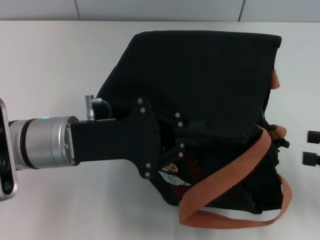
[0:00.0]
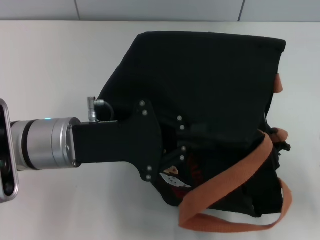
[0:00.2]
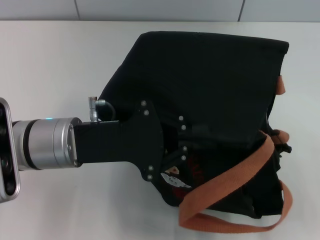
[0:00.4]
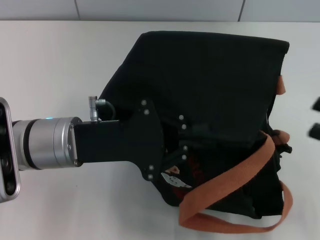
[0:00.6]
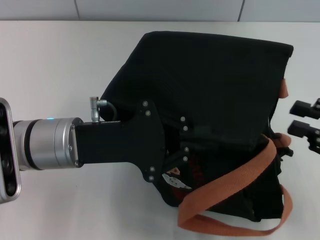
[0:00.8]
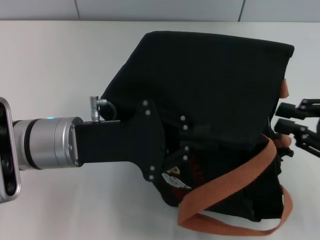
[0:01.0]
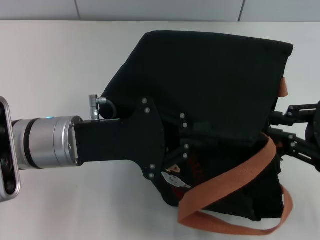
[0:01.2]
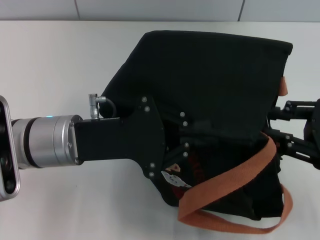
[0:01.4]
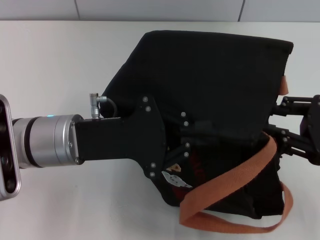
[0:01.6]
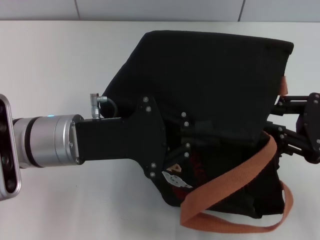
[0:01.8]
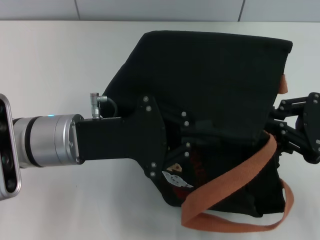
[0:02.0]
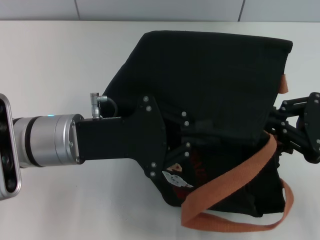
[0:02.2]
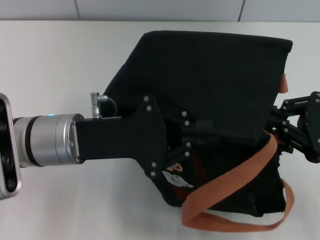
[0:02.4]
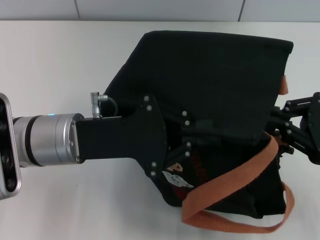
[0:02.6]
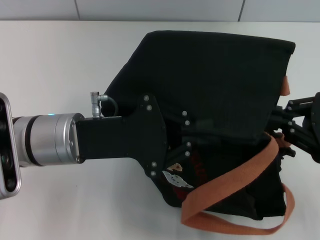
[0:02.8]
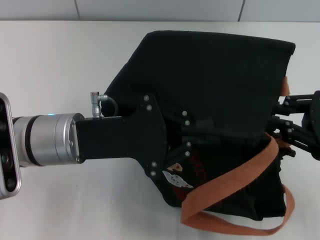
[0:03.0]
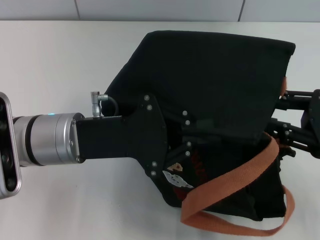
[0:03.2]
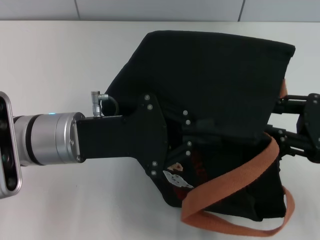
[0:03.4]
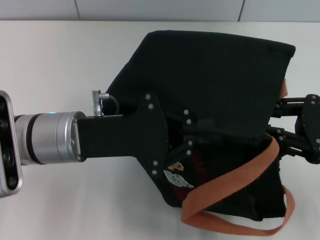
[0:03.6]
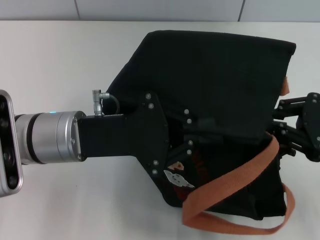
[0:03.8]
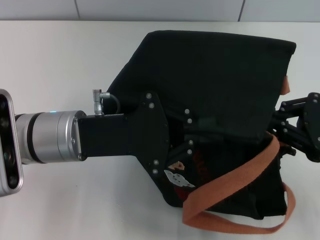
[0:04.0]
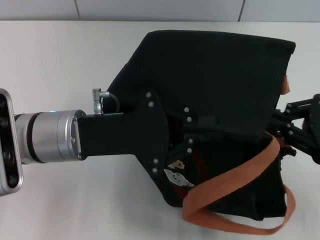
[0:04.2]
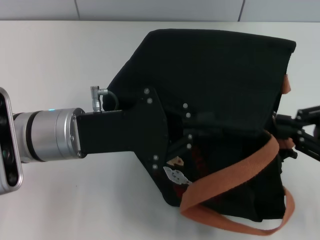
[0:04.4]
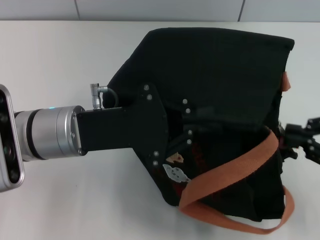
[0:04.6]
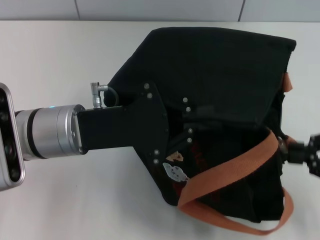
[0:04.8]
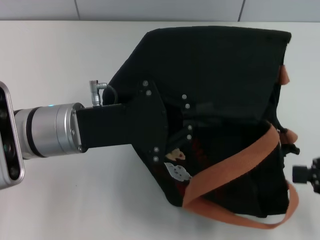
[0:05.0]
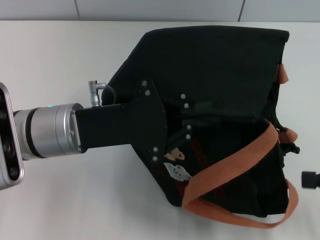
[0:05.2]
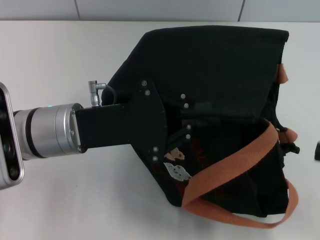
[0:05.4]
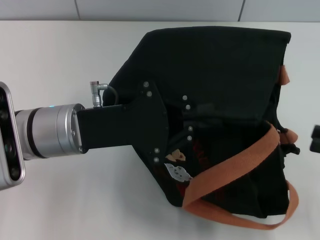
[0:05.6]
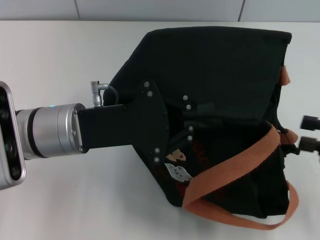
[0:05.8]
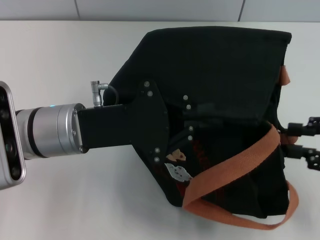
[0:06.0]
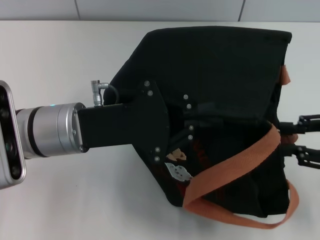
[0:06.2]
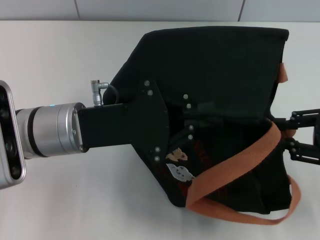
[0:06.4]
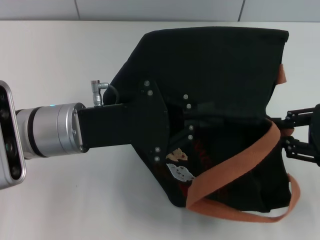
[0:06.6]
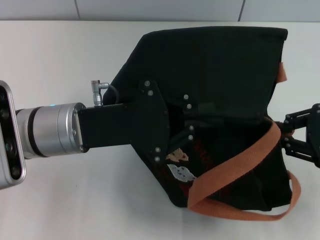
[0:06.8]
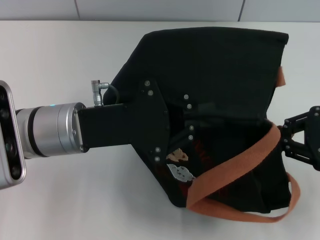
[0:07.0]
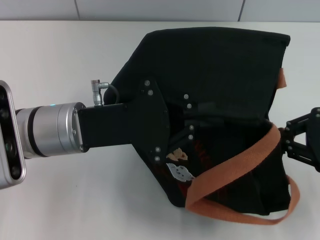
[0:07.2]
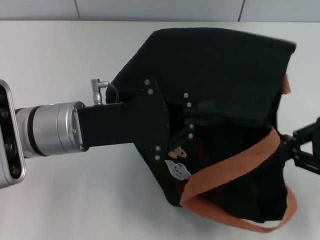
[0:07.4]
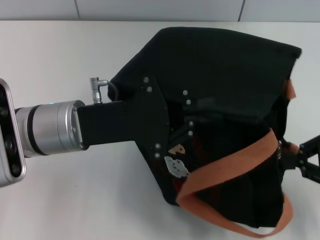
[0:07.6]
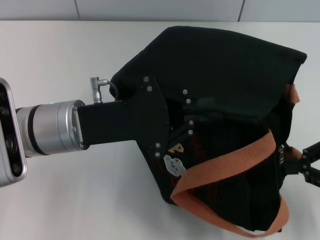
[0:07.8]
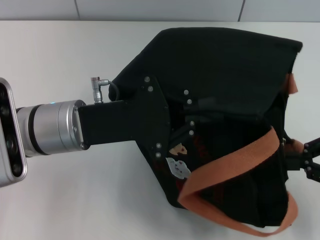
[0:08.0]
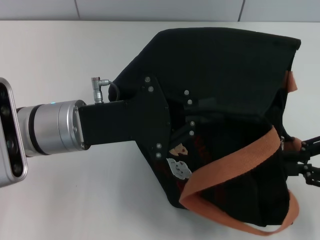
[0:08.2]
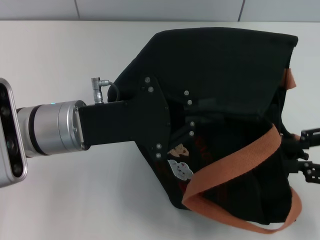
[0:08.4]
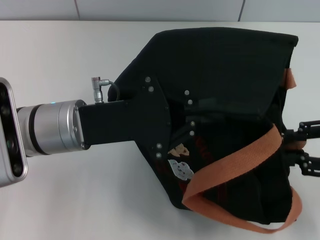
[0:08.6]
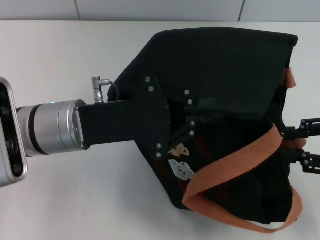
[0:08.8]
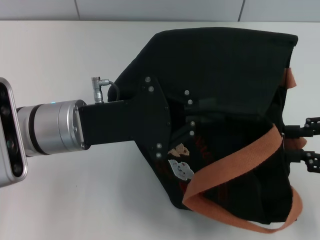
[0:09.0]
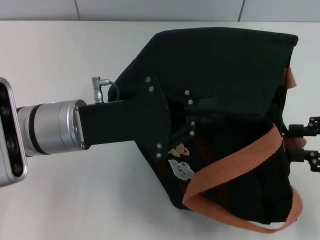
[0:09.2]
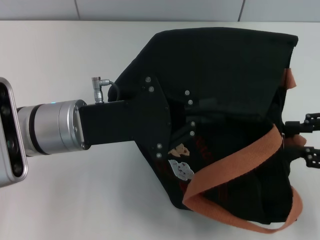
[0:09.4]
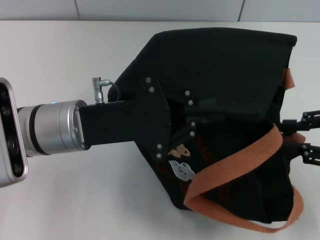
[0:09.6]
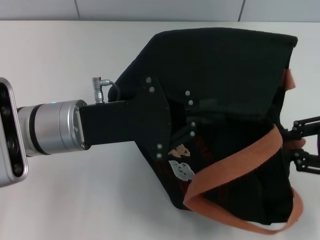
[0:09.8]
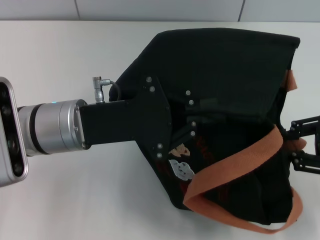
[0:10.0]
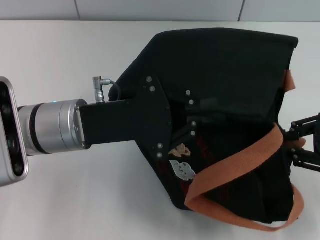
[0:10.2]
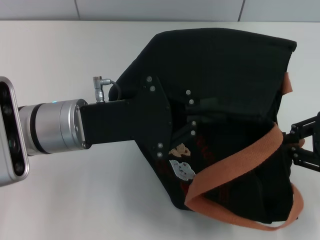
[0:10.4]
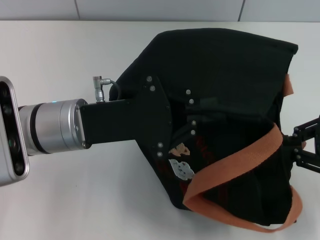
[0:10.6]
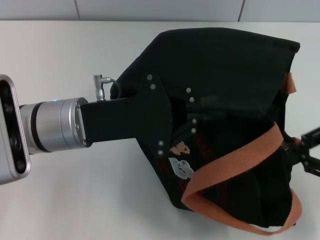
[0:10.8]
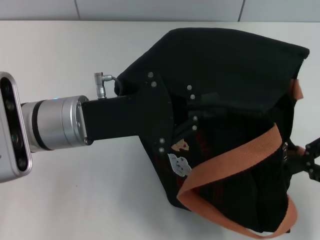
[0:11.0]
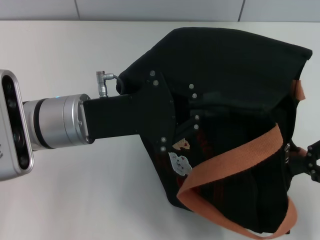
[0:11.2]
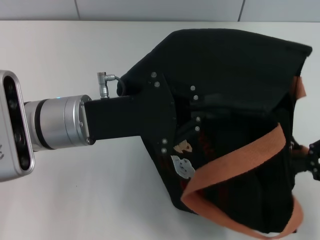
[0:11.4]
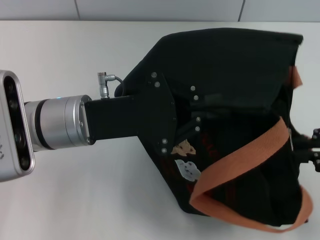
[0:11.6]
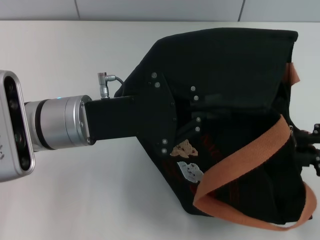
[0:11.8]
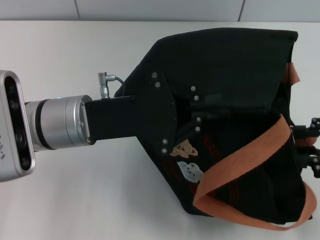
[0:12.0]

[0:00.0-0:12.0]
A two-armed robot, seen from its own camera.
0:00.0 to 0:01.6: The right gripper travels to the left by about 5 cm, and closes up.
0:01.6 to 0:03.0: The two grippers keep their place.
0:03.0 to 0:04.4: The right gripper opens, then closes again.
0:06.0 to 0:07.6: The grippers move only a little.
0:07.6 to 0:09.0: The right gripper opens.
0:09.0 to 0:12.0: The grippers make only small movements.

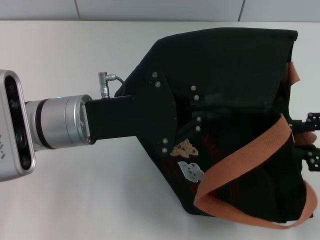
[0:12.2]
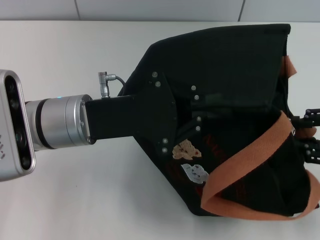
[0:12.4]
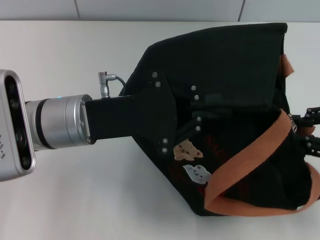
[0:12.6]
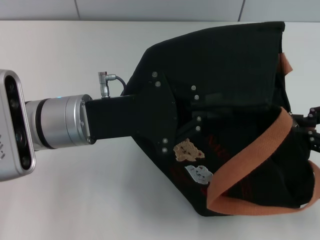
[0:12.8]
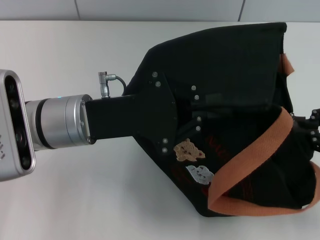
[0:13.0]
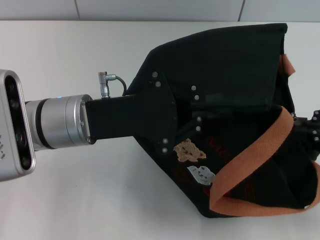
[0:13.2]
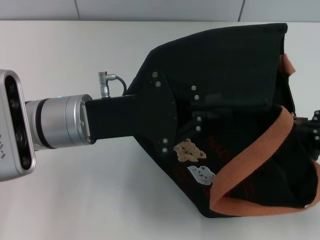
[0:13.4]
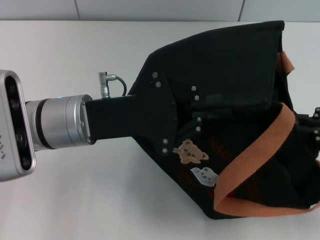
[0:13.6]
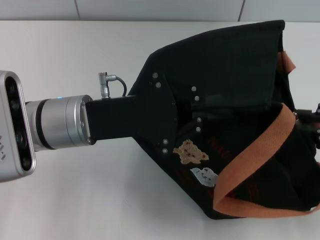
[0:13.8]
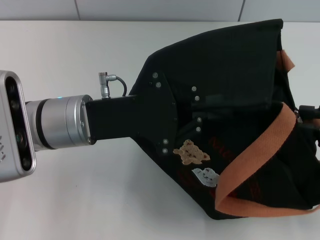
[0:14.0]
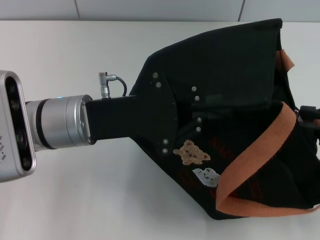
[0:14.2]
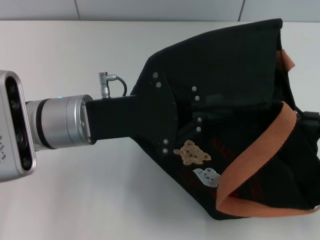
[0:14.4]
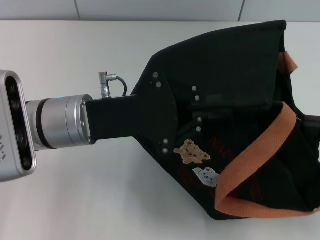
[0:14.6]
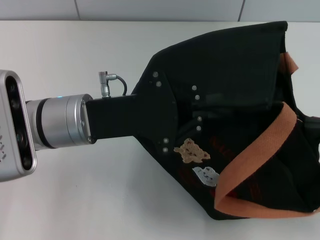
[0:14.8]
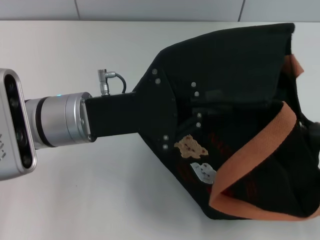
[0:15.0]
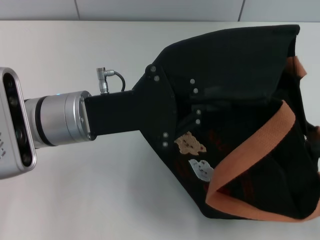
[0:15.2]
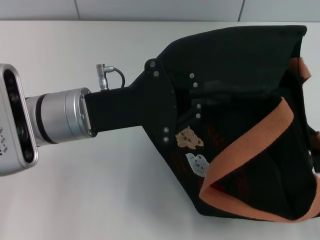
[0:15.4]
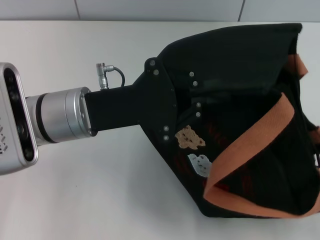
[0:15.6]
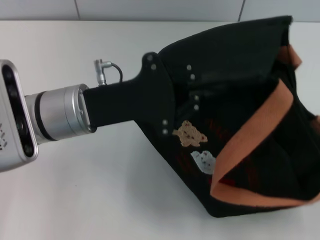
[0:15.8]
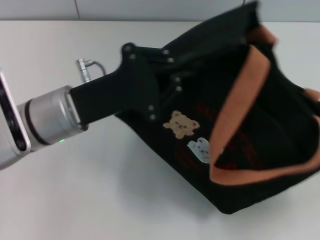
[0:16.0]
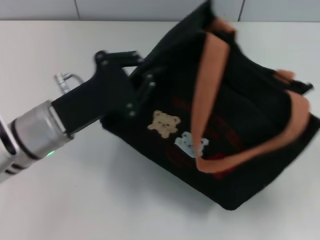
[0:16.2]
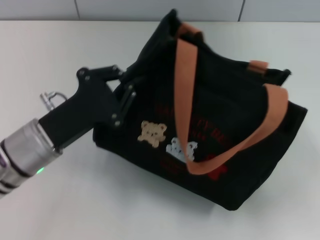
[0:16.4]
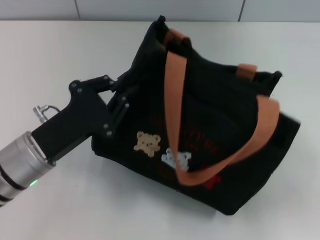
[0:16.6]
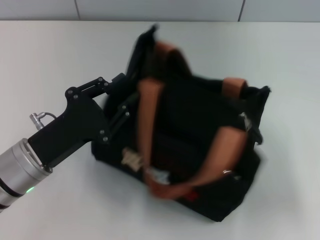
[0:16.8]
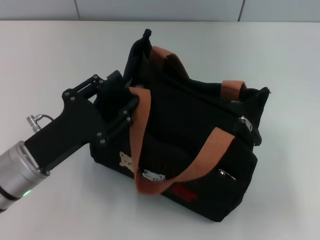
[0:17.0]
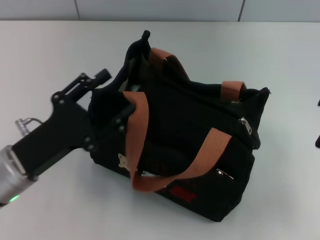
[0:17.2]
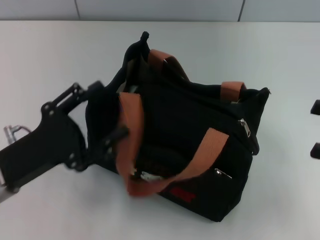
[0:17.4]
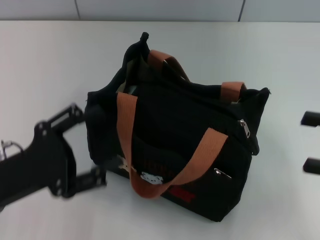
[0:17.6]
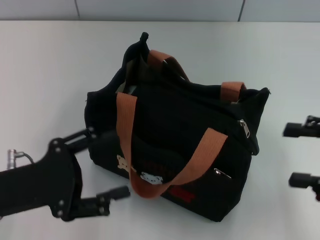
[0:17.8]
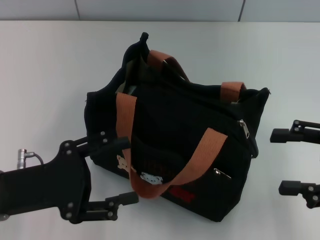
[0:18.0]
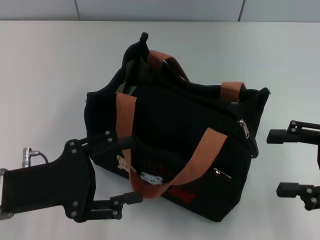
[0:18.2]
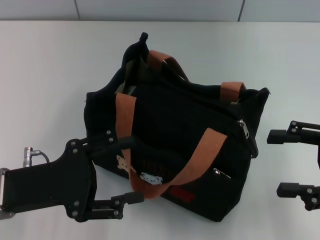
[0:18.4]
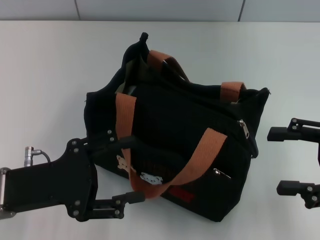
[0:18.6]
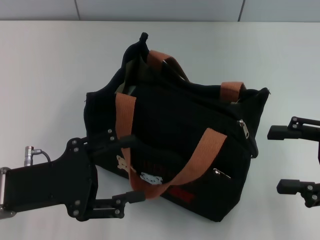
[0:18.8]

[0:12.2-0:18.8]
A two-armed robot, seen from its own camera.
Step, 0:12.2 to 0:16.2: Pull open the zipper with your right hand.
Step, 0:16.6 to 0:17.2: Grab the bag with your left hand.
0:12.2 to 0:13.8: The right gripper closes.
0:13.8 to 0:15.4: The grippers stay close to where they were, moving slightly.
0:15.4 to 0:17.2: The right gripper opens up. Meanwhile the left gripper heads to the left, backward and downward, covering roughly 10 cm, and opens its fingers.
0:17.2 to 0:18.8: The right gripper changes place by some 5 cm. The left gripper opens up.

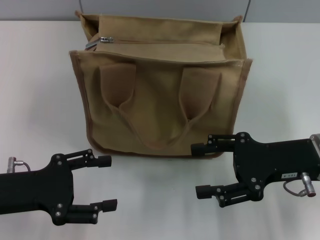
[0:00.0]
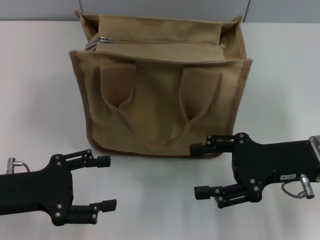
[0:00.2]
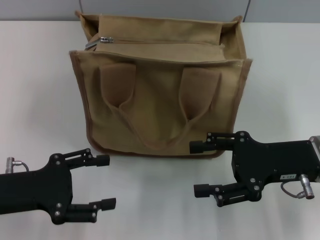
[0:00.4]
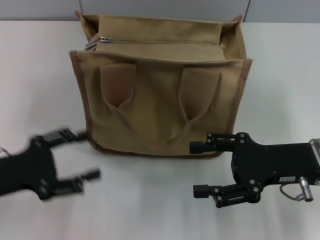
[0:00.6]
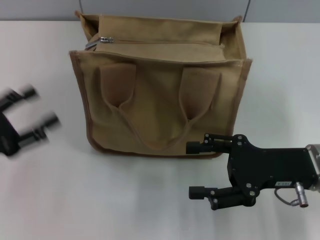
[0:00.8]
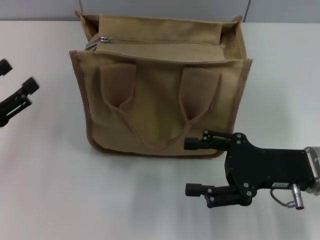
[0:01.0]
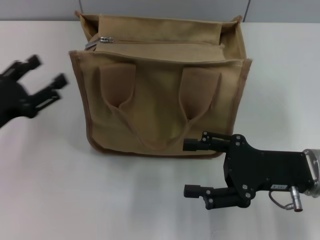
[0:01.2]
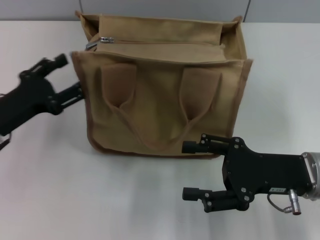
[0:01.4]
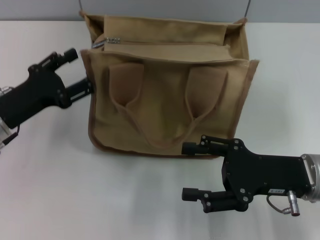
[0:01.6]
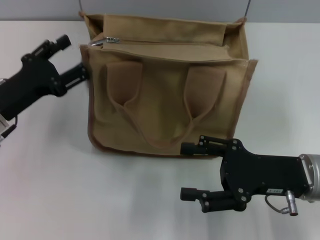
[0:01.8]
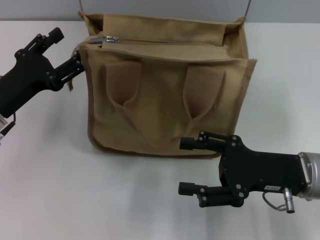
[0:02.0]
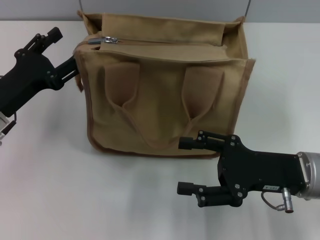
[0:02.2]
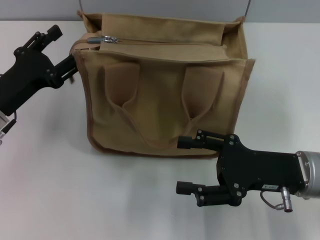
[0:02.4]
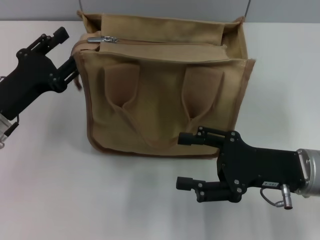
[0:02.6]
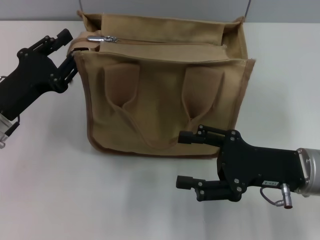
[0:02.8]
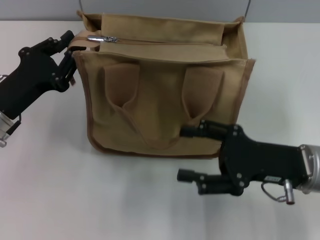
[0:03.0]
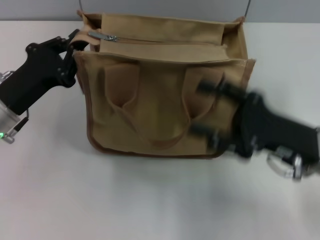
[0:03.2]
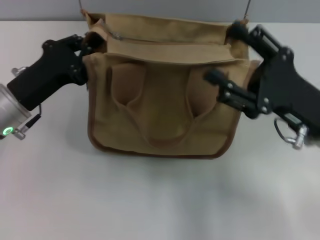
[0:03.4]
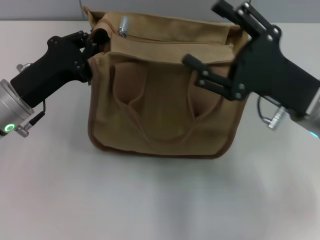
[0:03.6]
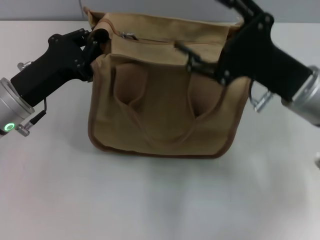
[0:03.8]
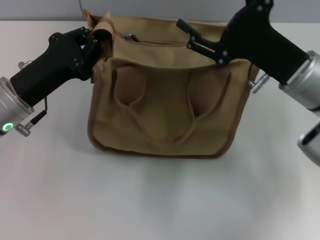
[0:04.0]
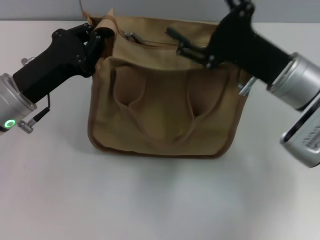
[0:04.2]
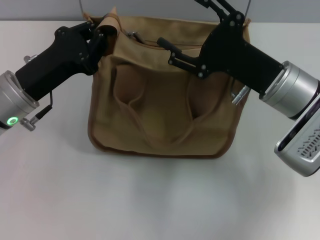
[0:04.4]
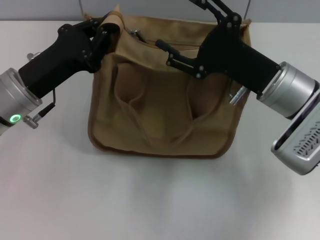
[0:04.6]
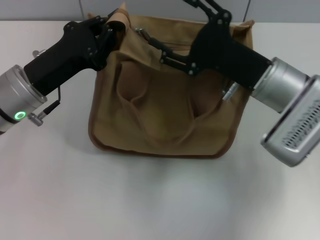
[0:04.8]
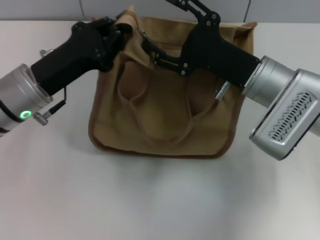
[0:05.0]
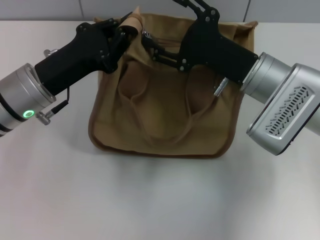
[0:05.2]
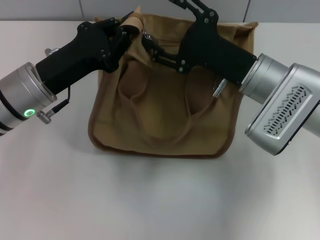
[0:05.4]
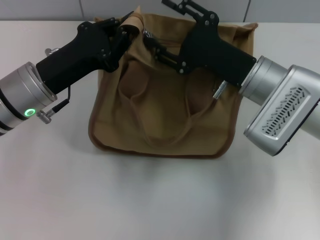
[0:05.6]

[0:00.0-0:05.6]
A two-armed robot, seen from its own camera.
0:00.0 to 0:01.4: The left gripper shifts some 5 cm forward.
0:01.4 to 0:02.8: There are only small adjustments of the grippers.
0:02.8 to 0:04.2: The right gripper is displaced forward by roughly 10 cm, while the left gripper closes.
